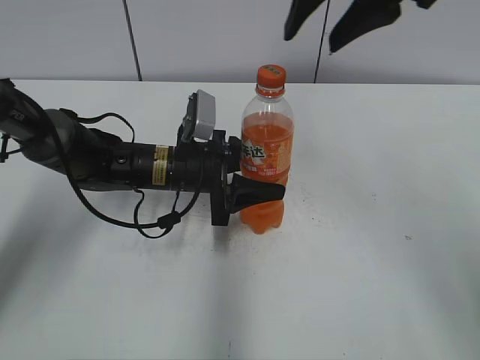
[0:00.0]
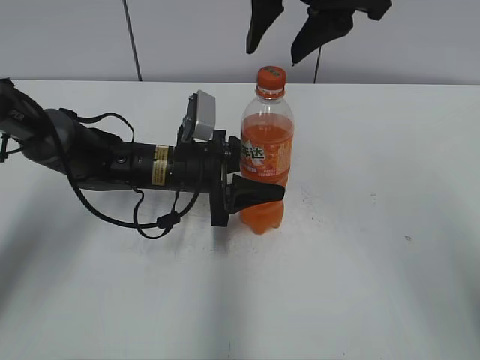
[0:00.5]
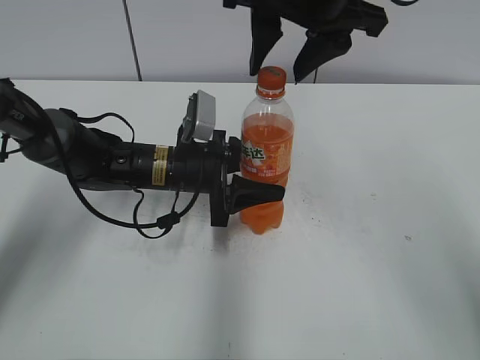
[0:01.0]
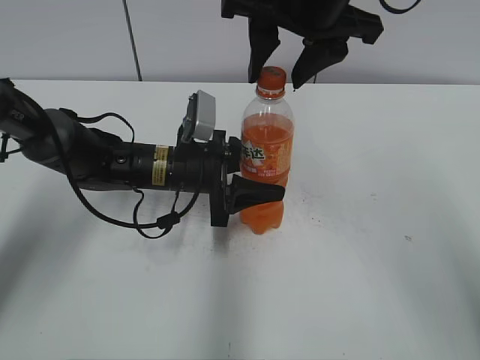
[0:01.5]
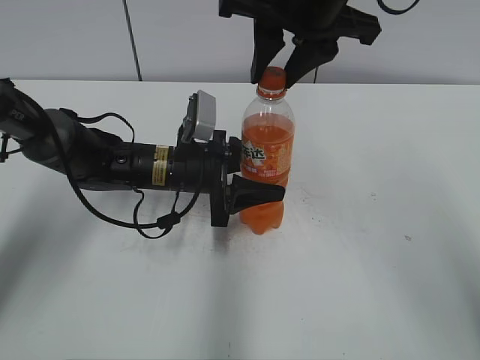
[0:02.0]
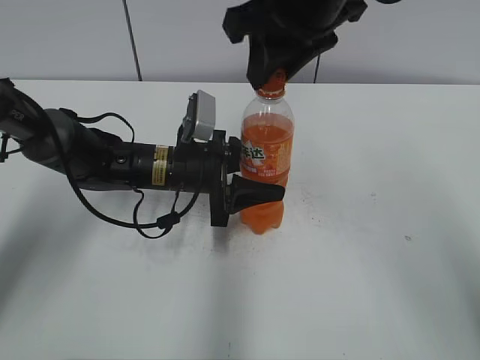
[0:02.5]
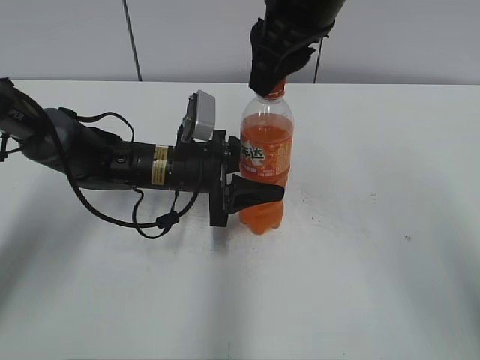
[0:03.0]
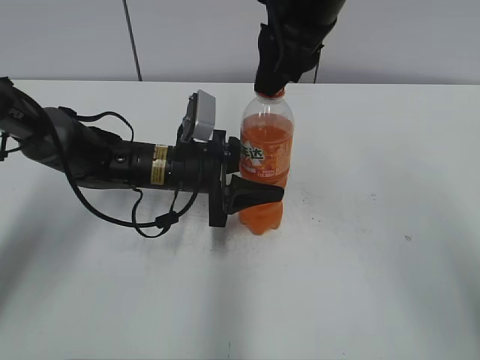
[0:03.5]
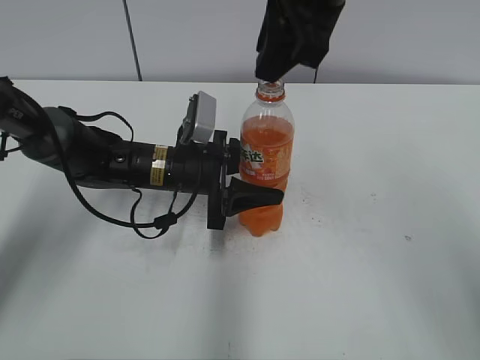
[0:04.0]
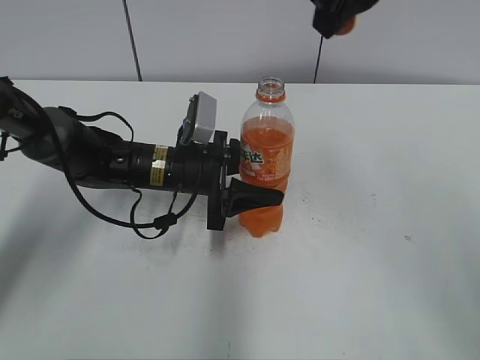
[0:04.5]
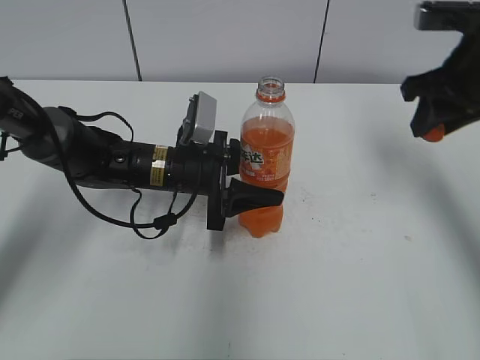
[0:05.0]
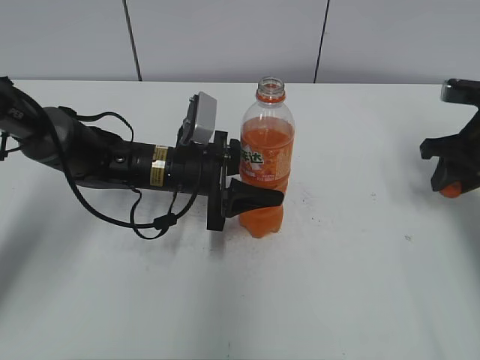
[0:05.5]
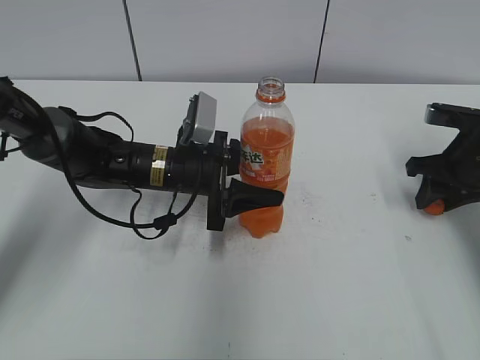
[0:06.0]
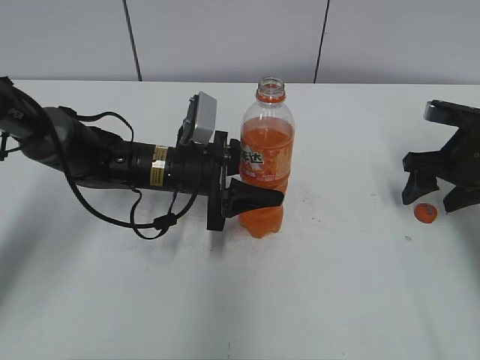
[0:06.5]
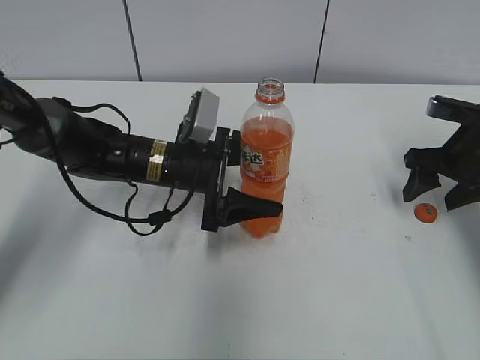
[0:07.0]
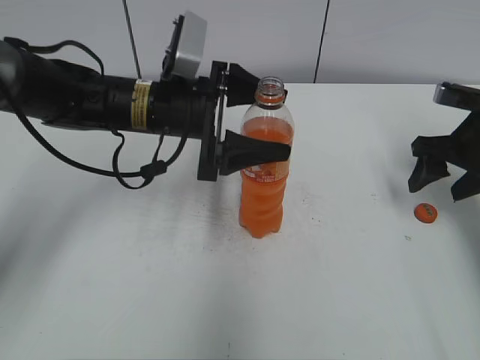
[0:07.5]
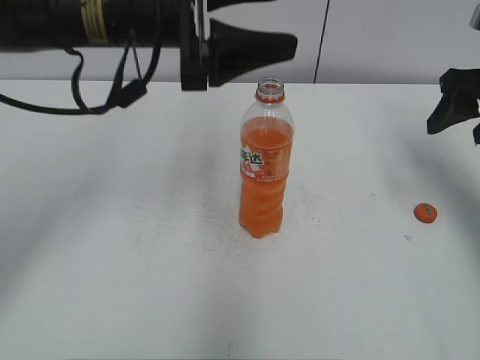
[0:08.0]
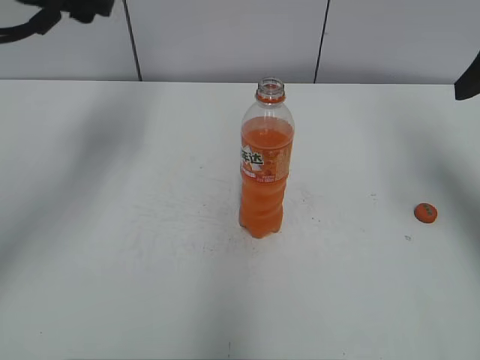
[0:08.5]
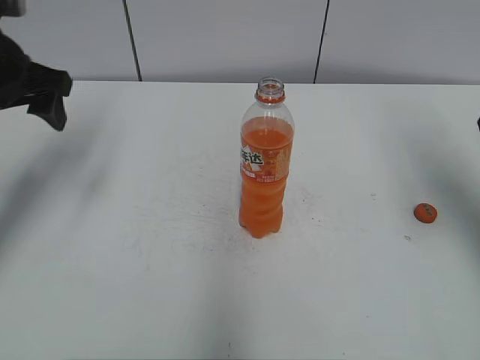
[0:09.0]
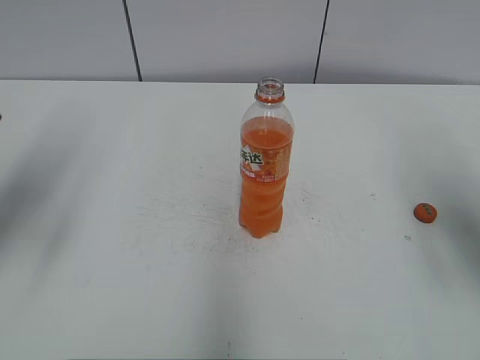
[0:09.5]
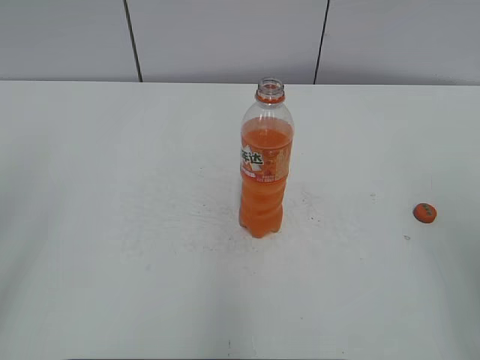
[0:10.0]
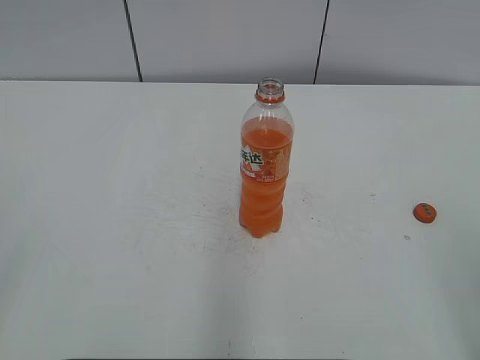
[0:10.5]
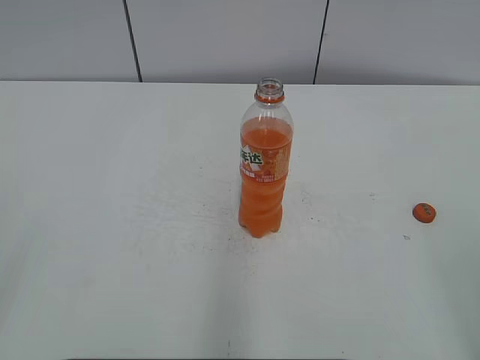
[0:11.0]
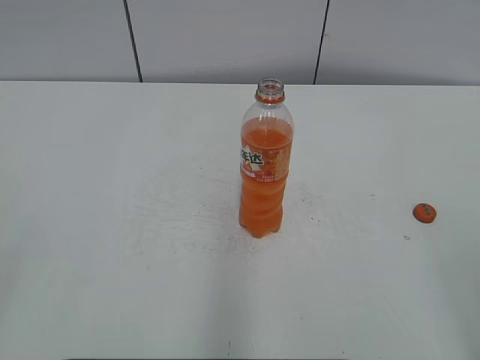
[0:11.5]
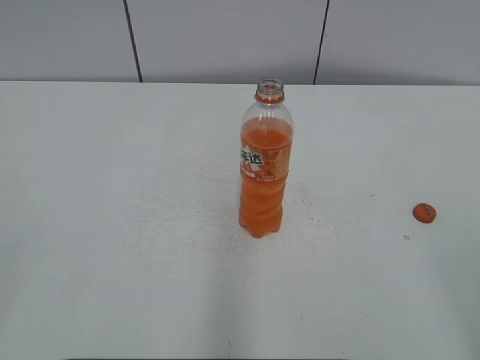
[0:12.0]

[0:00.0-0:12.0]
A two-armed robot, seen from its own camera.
Step, 0:00.0 to 0:03.5: Twist the bottle cap with the right hand.
Step, 0:04.0 to 0:06.0: Place the bottle cap on the right.
Step, 0:06.5 to 0:07.0: Place the Mirinda with the left hand.
0:00.0 to 0:02.0: The right gripper moves to the left, about 5 cm.
0:04.0 to 0:06.0: The right gripper travels to the right and downward by some 30 cm.
0:06.0 to 0:08.0: The left gripper moves upward, about 20 cm, and opens its fingers. Meanwhile the right gripper shifts approximately 10 cm upward, and opens up.
0:08.0 to 0:10.0: The left gripper moves backward and to the left, some 30 cm; the right gripper shifts about 20 cm backward.

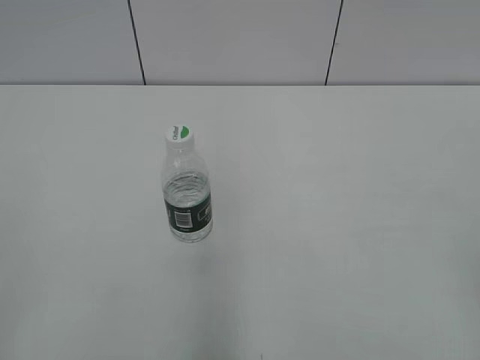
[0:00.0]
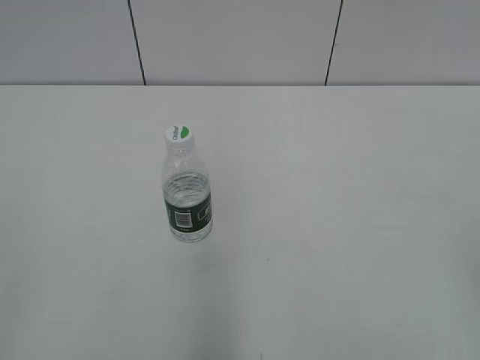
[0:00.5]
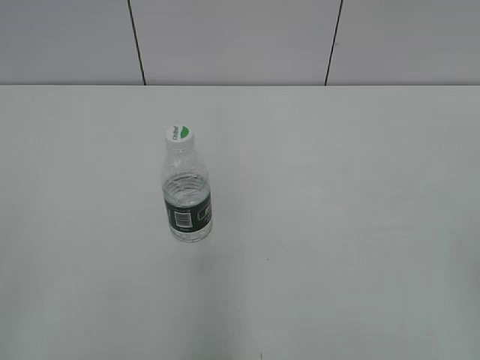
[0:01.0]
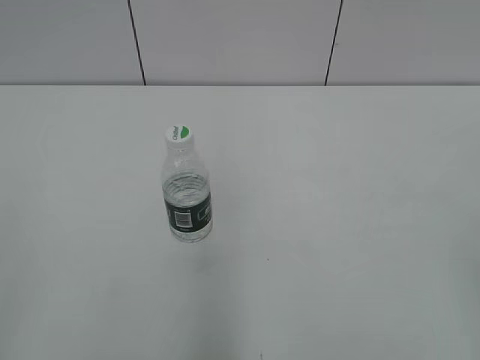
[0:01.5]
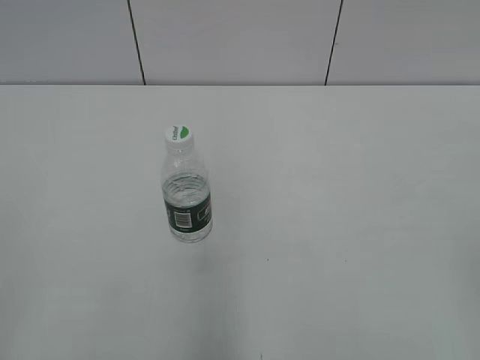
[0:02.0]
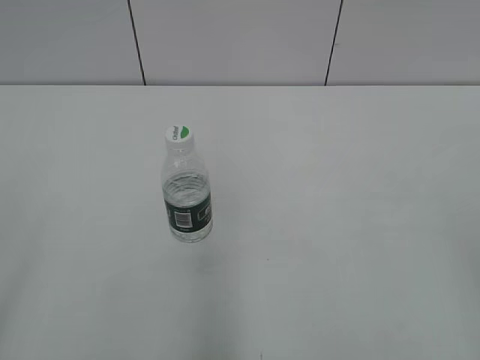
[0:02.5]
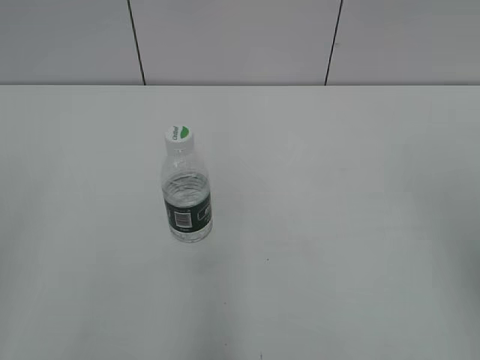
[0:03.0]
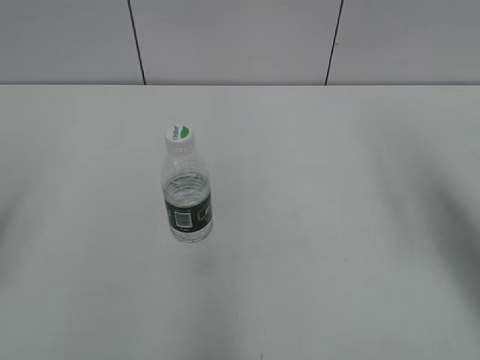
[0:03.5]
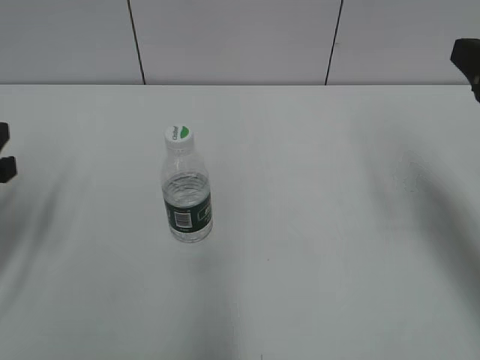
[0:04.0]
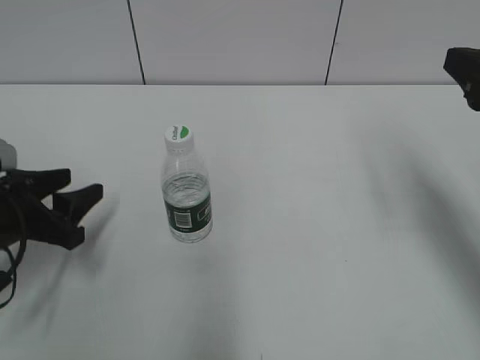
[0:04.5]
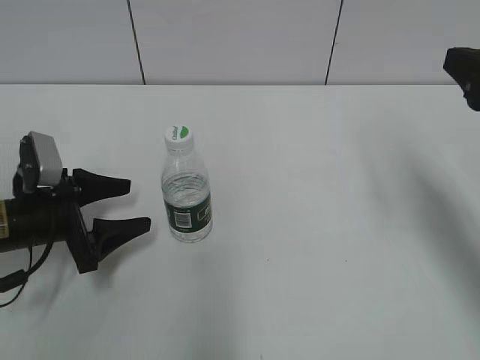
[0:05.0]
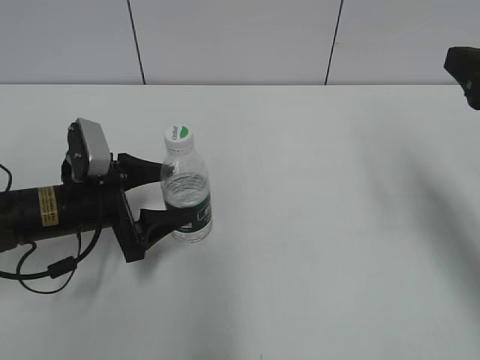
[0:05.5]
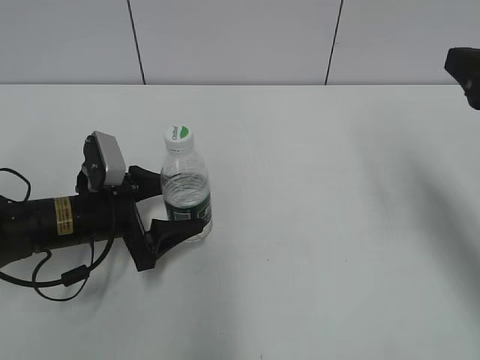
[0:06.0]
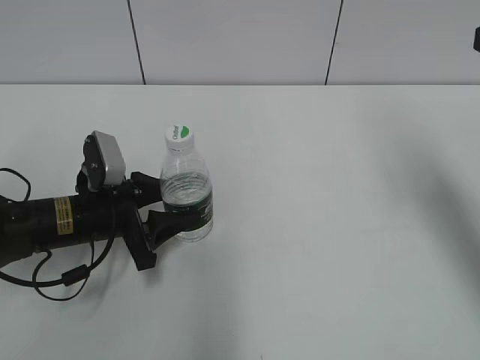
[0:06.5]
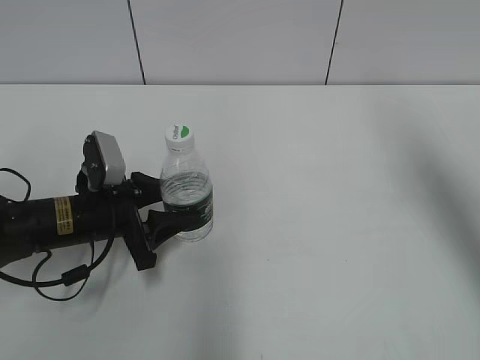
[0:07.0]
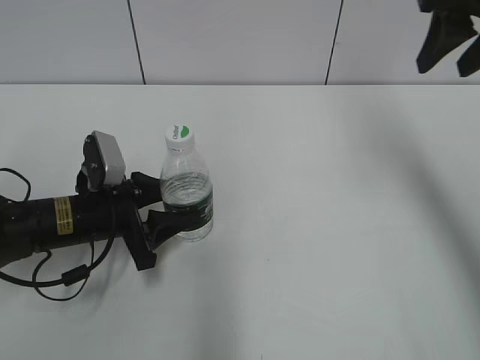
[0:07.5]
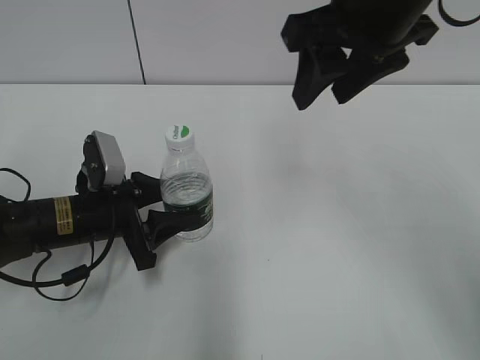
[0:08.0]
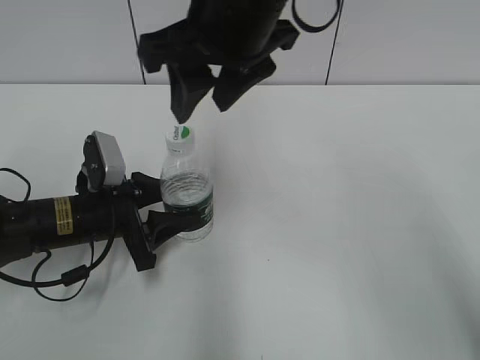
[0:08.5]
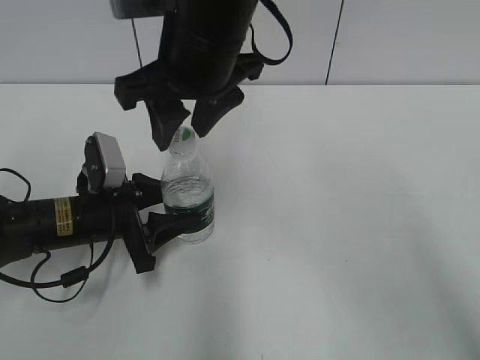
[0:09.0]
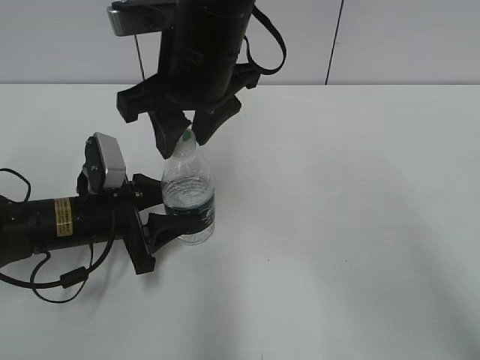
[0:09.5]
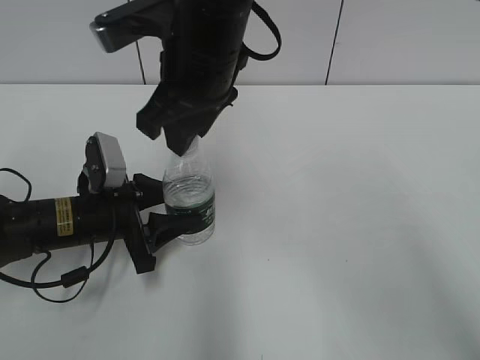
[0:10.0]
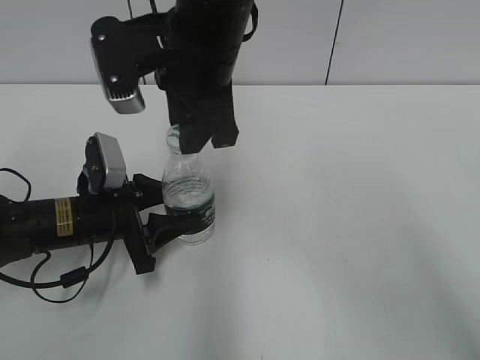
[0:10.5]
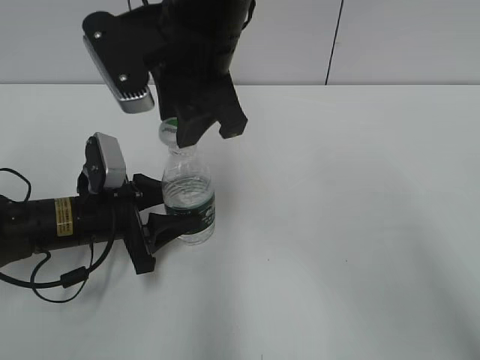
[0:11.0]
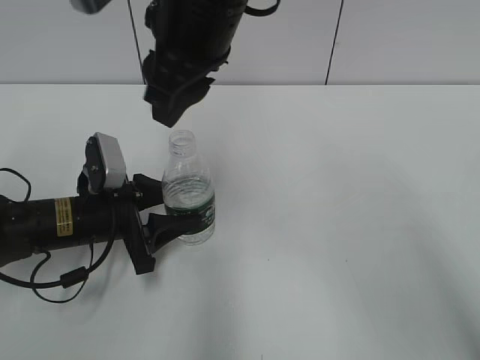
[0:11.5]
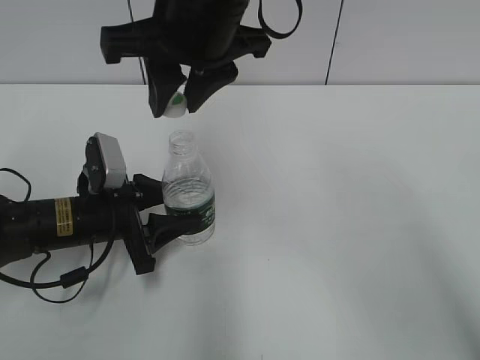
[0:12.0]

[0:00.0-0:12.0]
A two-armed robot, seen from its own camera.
Step, 0:00.0 to 0:07.5: Grasp the bottle and move it to the center of the table with the left gripper.
Step, 0:08.0 to 0:11.5: Unscrew the bottle cap with the right gripper while holding the bottle with the left gripper.
0:02.0 to 0:04.0: The right gripper heads forward, covering about 25 cm, while the left gripper heads forward and downward, covering some 25 cm, and opens up.
0:04.0 to 0:06.0: The left gripper is displaced downward, to the right and forward by about 20 cm, and opens.
0:06.0 to 0:08.0: The right gripper shifts approximately 15 cm to the left, and closes up. Meanwhile the left gripper closes.
0:08.0 to 0:10.0: The right gripper heads to the left and downward, covering approximately 15 cm, and closes up.

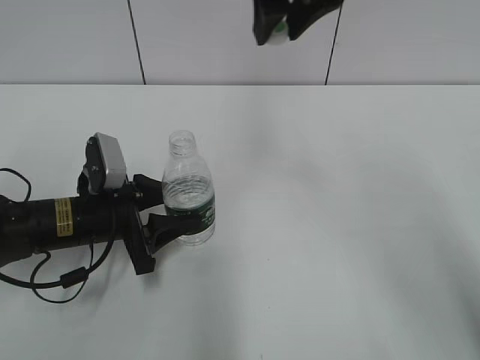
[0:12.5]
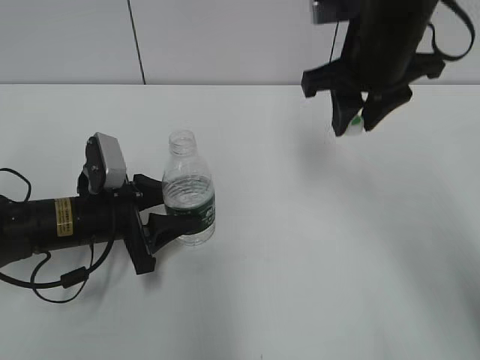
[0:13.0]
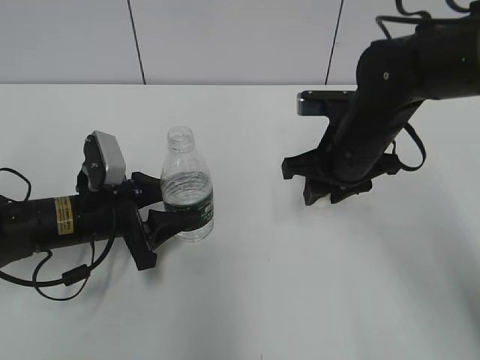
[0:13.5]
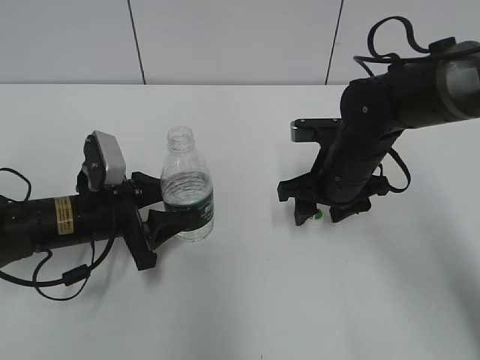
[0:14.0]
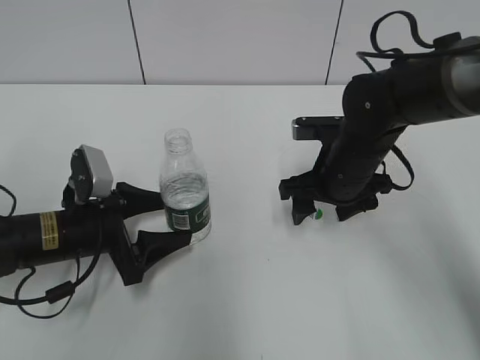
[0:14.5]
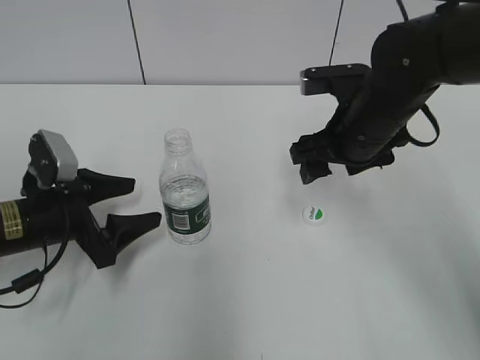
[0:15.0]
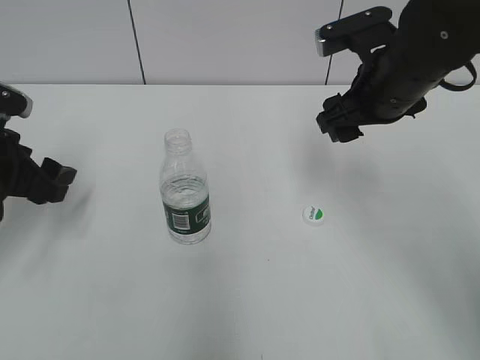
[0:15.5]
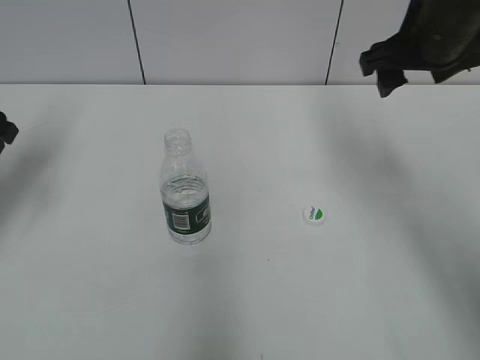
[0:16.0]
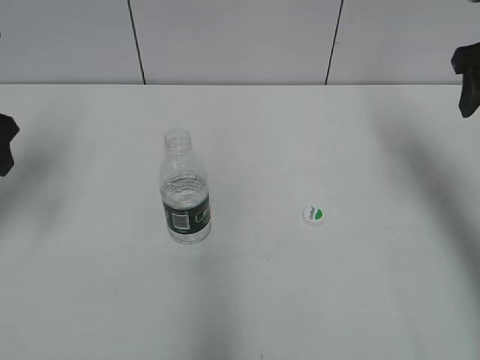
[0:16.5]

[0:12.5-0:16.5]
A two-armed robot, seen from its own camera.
Step, 0:12.5 to 0:14.0: Place the bottle cap on the table with the right gripper.
0:12.5 to 0:14.5: The left gripper opens its fingers, while the right gripper heads downward, covering some 25 cm, and opens up.
0:14.5 to 0:16.5: The right gripper moves upward and to the right, approximately 25 cm. The left gripper goes approximately 20 cm upward and to the left.
